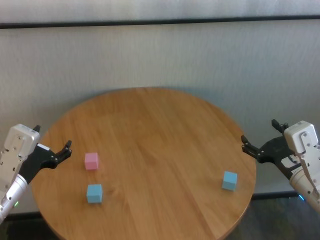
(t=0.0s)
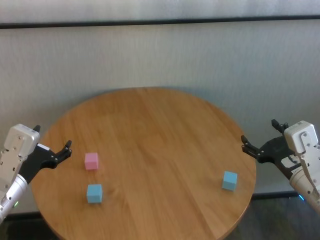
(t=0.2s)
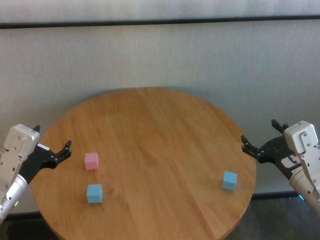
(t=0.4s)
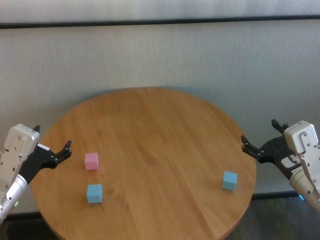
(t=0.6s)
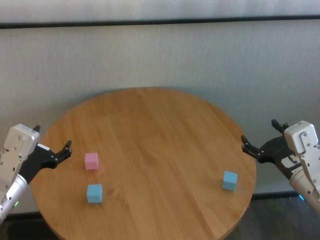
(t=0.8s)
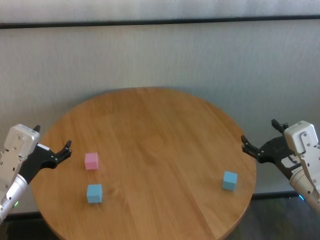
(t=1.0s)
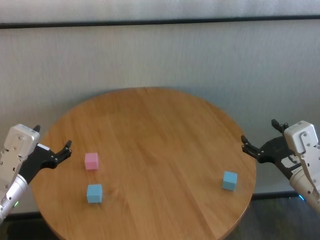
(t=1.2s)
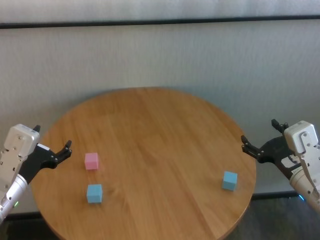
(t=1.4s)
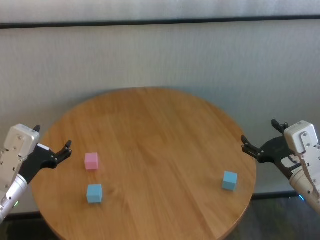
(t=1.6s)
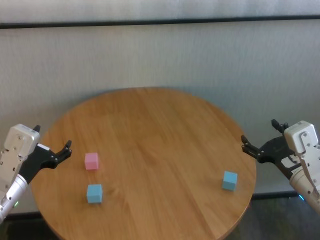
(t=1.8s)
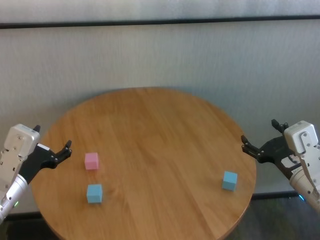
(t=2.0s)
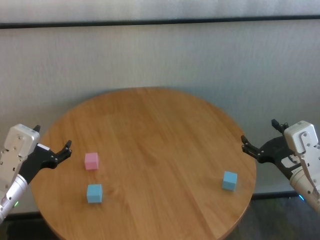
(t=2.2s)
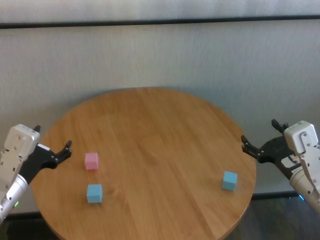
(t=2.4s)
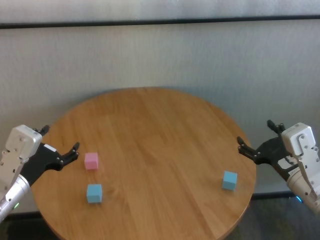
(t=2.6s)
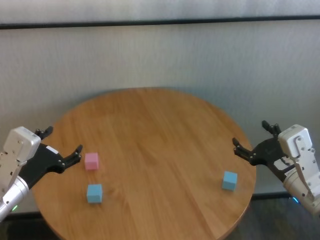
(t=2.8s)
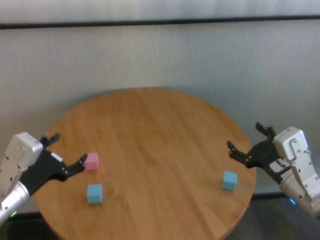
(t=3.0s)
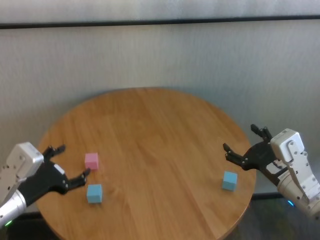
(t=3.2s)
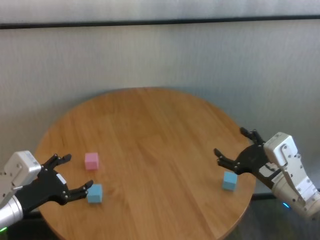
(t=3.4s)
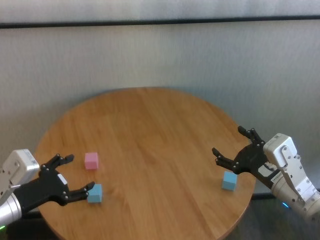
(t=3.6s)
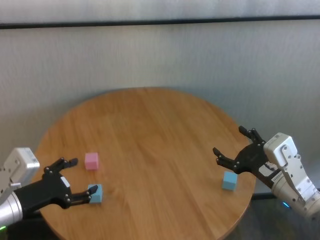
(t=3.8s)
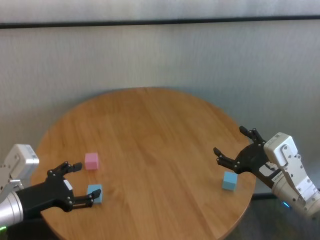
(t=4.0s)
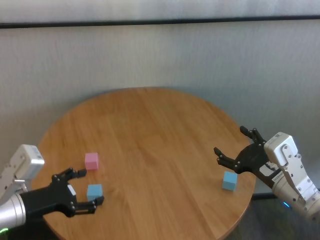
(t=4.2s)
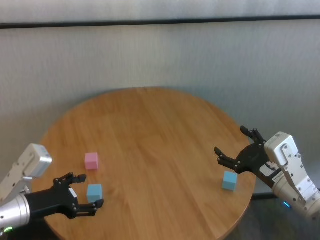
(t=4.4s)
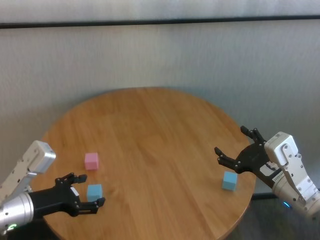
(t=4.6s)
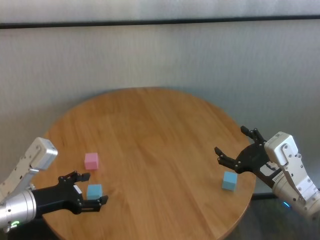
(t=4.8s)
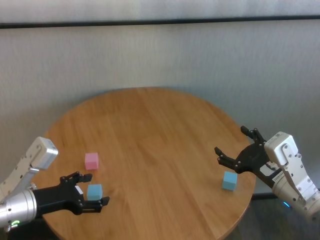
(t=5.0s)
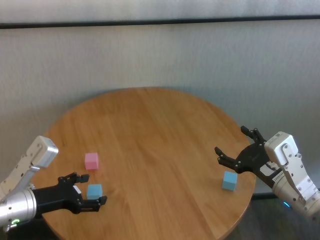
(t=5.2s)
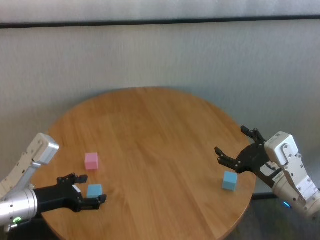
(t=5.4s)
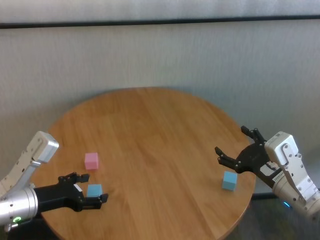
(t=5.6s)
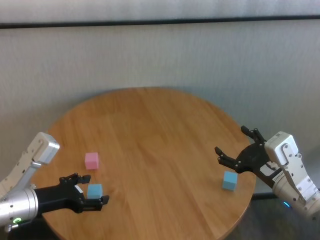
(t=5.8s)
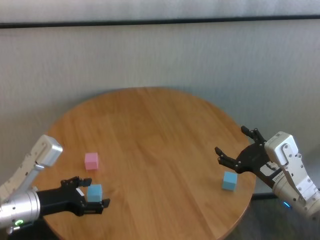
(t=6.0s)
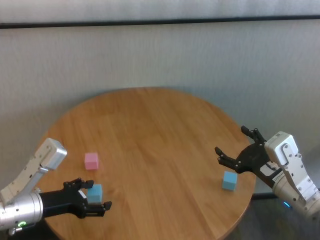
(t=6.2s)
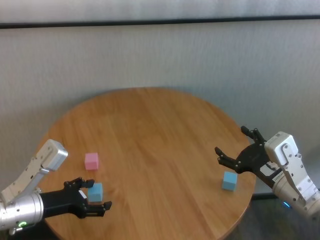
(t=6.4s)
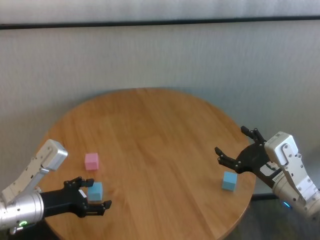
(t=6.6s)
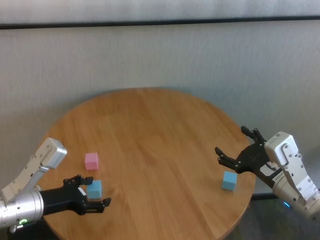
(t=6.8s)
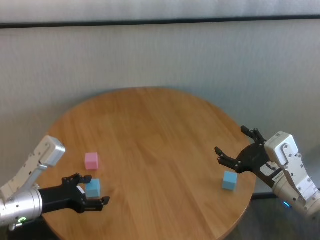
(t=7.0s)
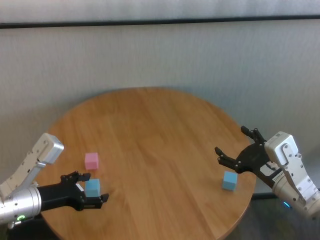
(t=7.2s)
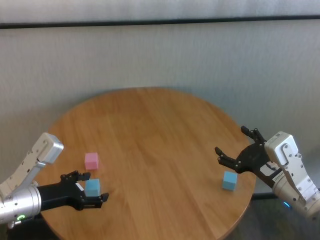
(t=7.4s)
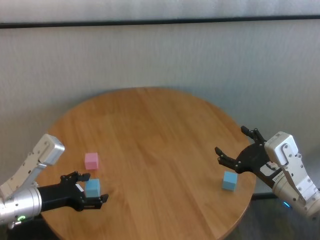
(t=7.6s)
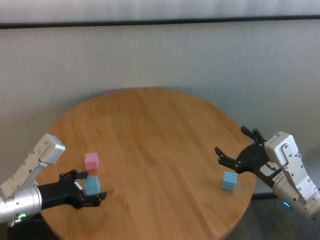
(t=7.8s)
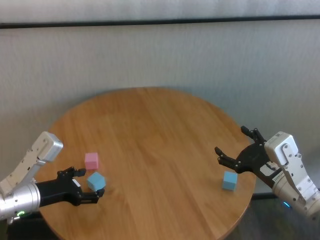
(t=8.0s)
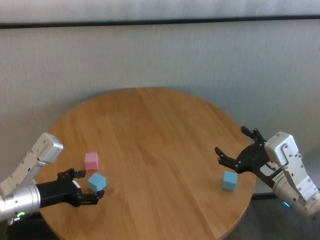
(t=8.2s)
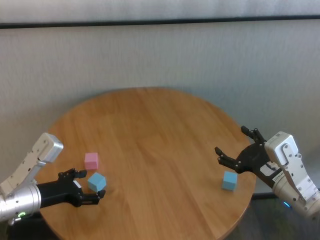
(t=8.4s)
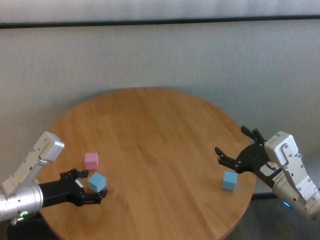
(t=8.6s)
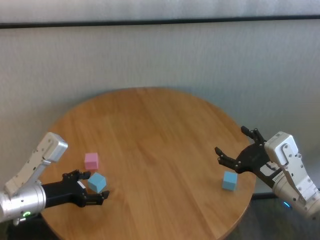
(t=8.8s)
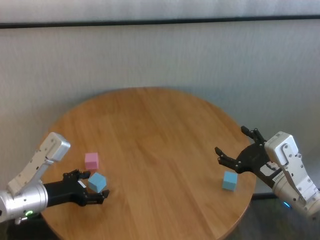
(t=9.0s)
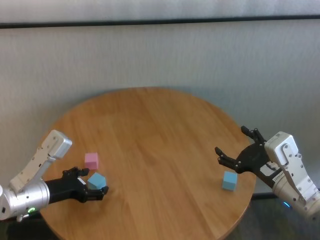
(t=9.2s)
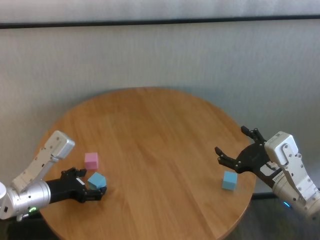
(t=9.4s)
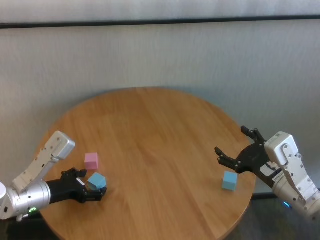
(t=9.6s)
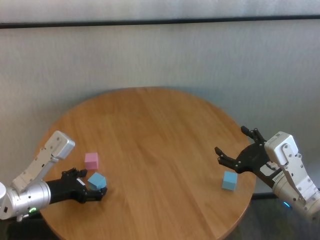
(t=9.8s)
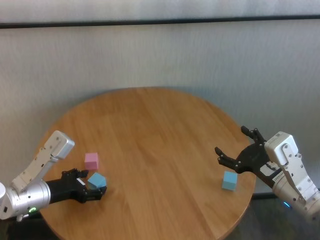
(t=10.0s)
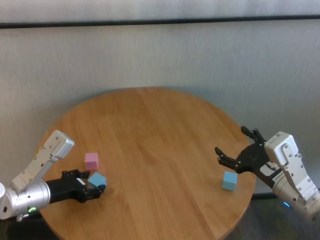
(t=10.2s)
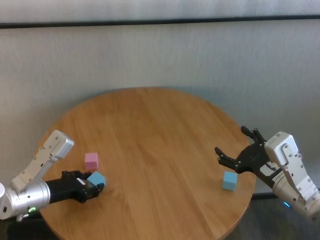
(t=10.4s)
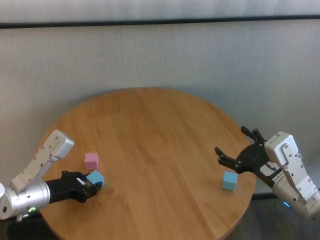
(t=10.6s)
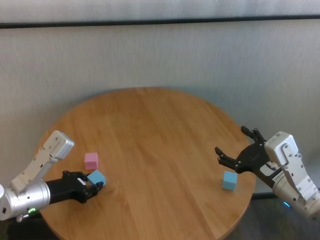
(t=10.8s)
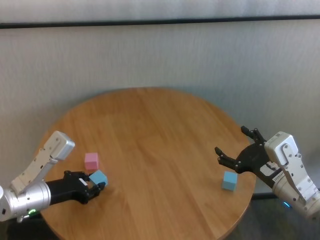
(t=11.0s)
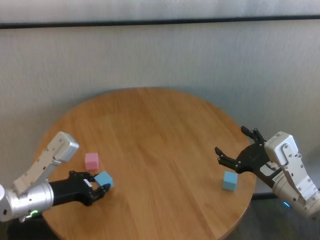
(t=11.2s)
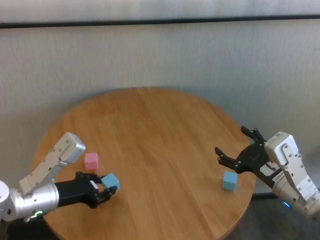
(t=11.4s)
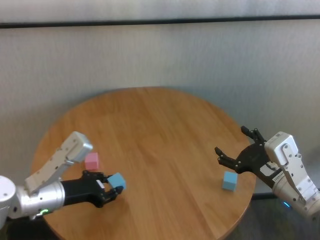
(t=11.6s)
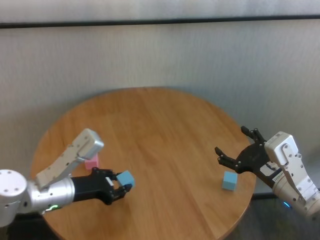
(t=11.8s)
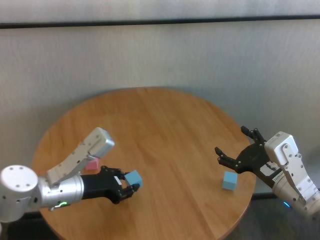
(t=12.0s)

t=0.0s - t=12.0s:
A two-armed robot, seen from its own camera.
Task of the whole recording: stack building blocks on the table.
Step, t=0.0s - t=10.6s: Grasp the blue building block with left gripper.

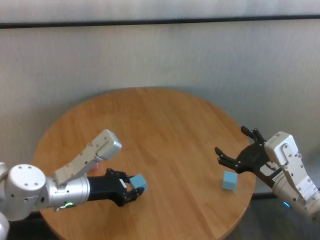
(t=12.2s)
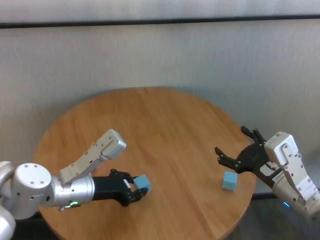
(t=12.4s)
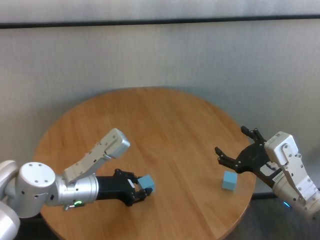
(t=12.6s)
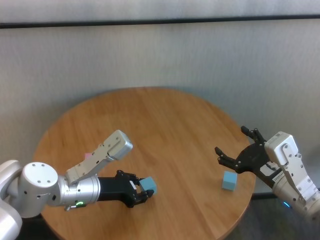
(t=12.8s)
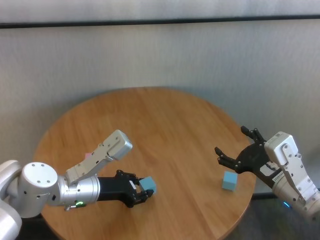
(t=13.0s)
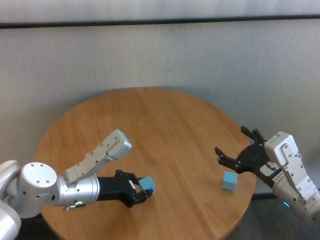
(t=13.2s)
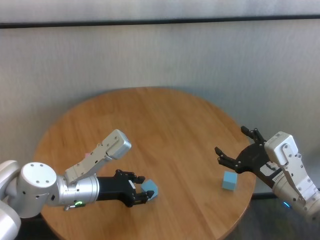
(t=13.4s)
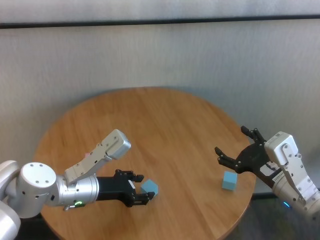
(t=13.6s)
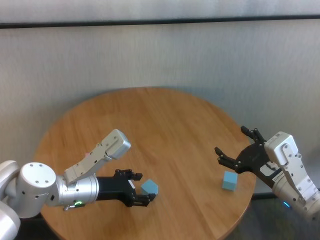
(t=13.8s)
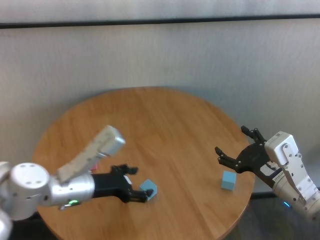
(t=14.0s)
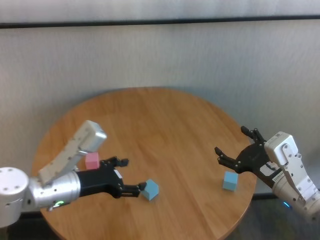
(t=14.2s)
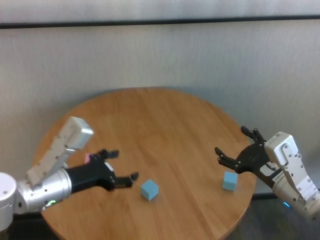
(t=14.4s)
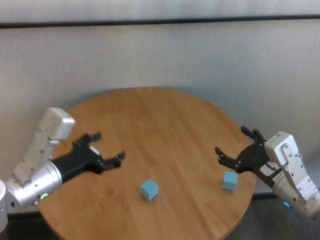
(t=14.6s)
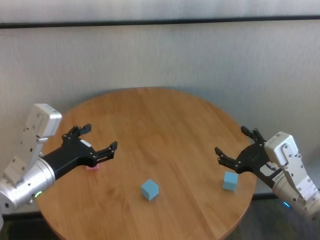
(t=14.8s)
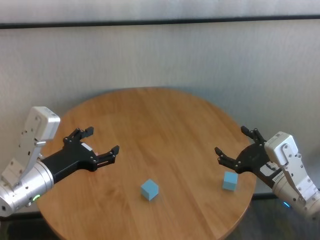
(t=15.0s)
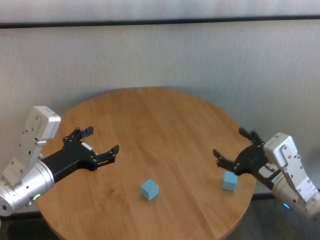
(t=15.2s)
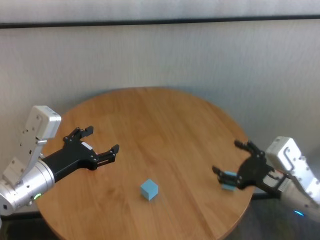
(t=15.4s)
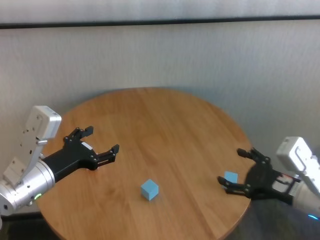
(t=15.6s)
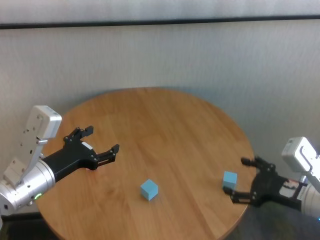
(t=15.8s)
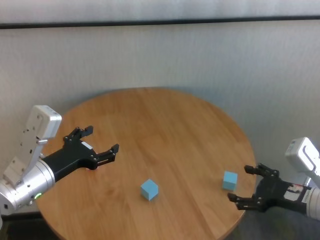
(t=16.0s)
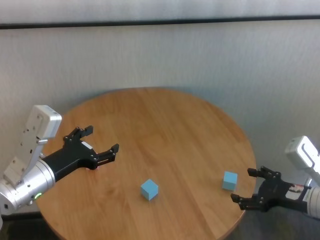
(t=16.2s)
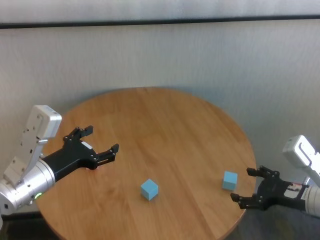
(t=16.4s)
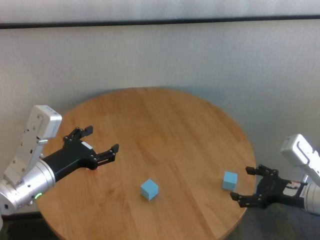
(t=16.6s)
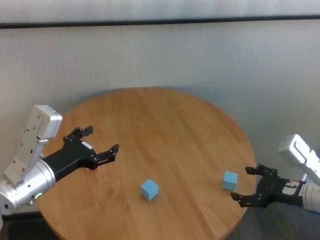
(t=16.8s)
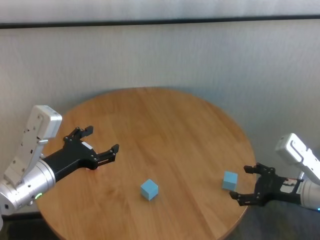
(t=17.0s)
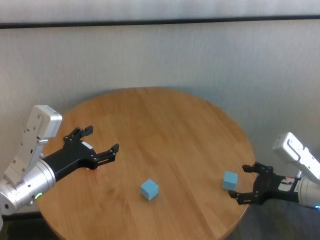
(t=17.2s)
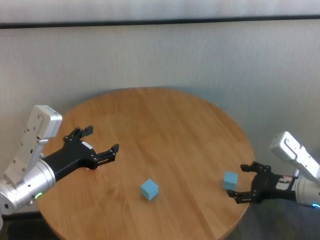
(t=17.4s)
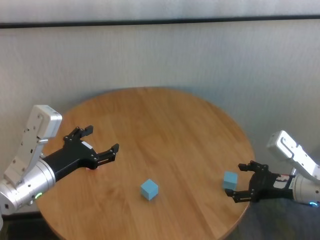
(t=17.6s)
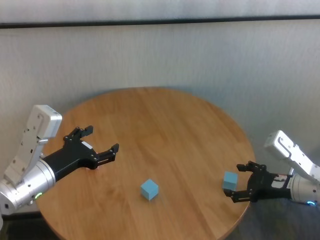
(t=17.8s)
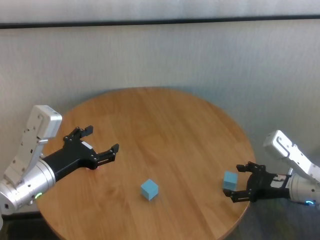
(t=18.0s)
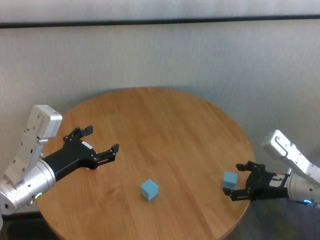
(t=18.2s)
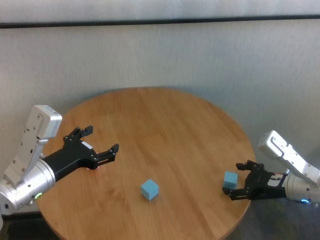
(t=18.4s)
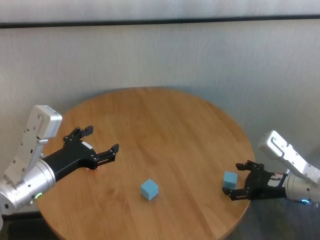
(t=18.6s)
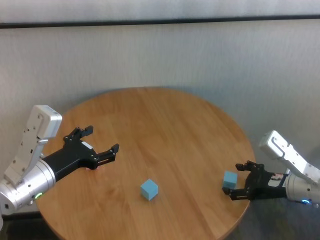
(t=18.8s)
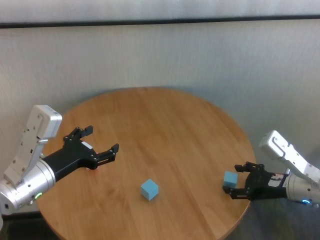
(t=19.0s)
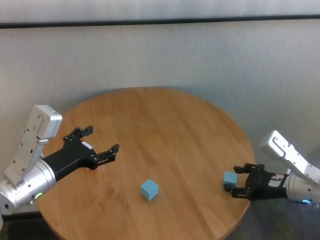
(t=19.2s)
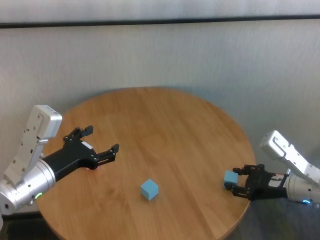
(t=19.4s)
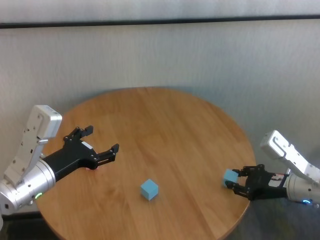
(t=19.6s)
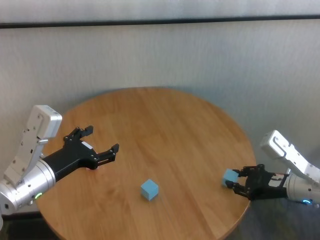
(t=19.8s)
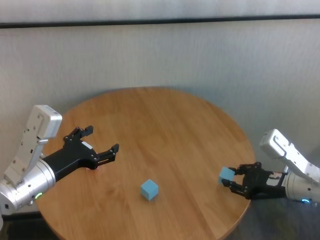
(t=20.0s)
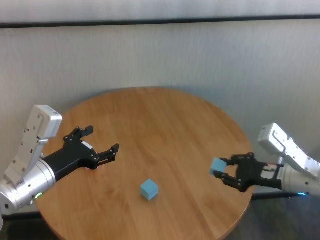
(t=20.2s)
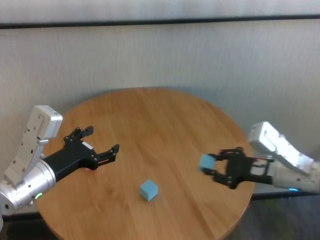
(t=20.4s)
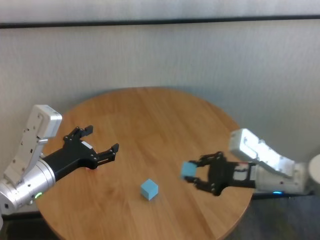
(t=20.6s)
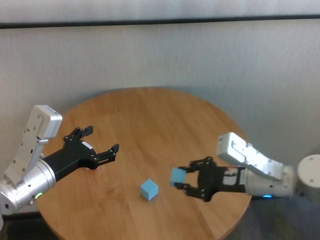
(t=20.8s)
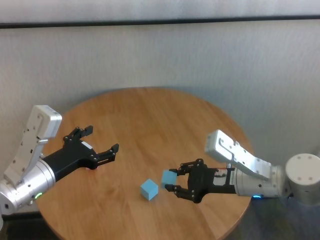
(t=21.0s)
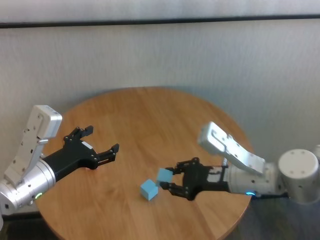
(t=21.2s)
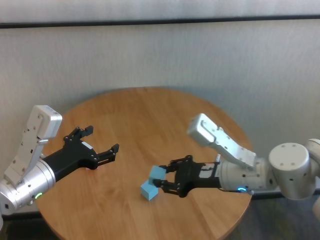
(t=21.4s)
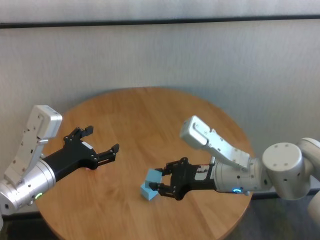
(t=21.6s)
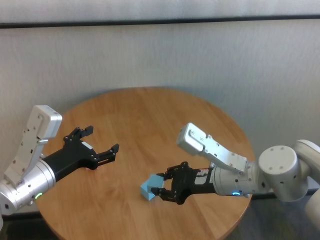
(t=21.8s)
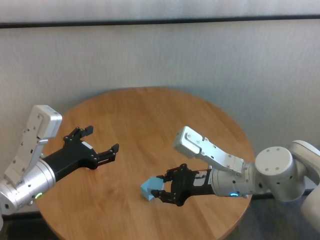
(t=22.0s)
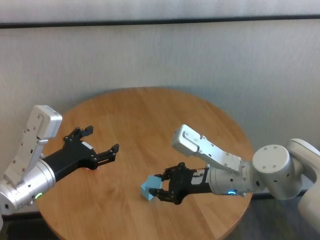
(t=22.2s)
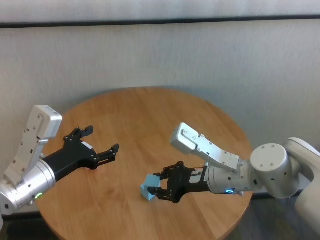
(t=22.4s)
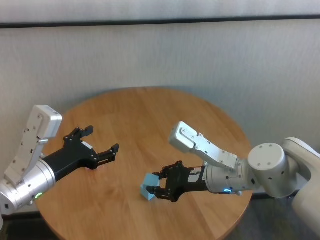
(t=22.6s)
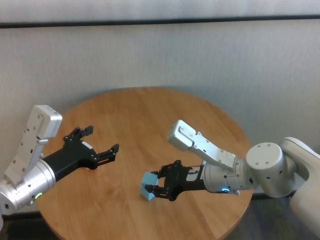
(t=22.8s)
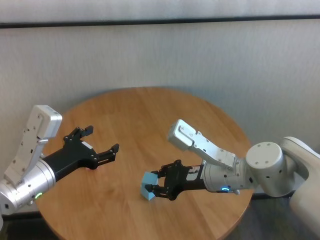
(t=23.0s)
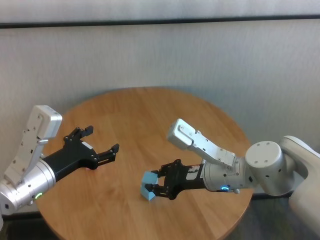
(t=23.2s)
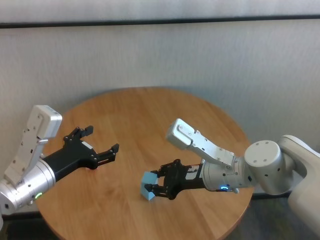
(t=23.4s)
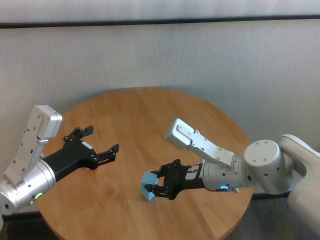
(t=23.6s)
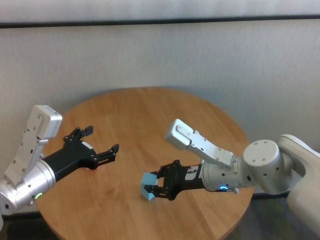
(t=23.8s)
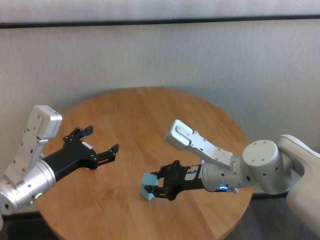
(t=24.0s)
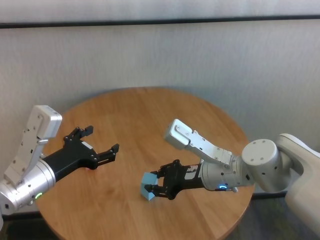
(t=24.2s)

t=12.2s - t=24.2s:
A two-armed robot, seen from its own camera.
Task of the whole recording: stack building blocks on the table.
Step, t=14.0s - t=19.6s: Grasp the blue building block with right gripper.
